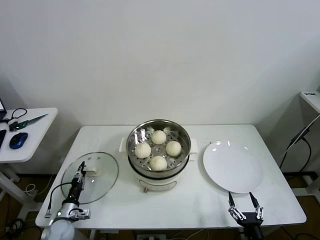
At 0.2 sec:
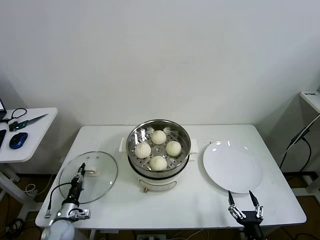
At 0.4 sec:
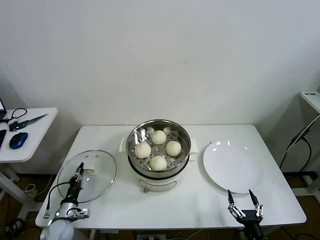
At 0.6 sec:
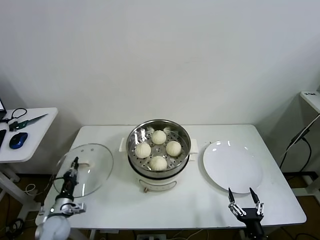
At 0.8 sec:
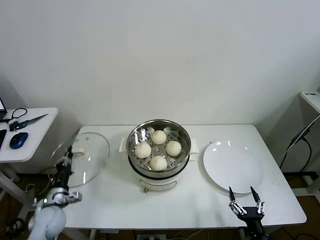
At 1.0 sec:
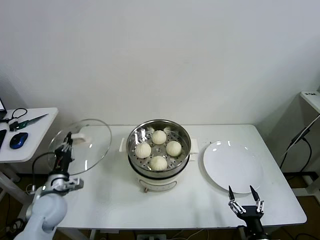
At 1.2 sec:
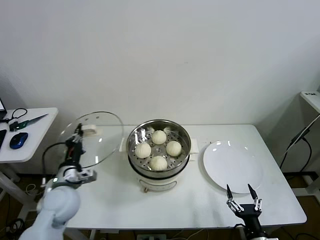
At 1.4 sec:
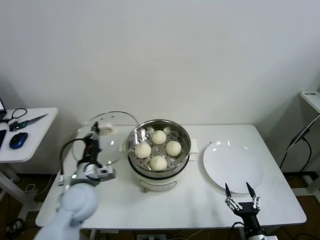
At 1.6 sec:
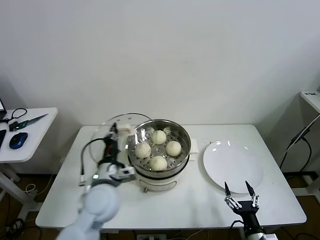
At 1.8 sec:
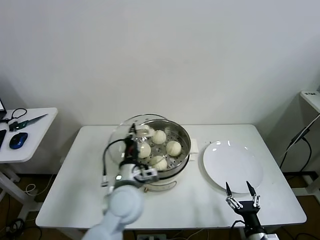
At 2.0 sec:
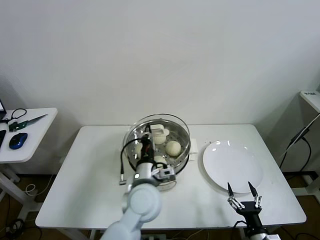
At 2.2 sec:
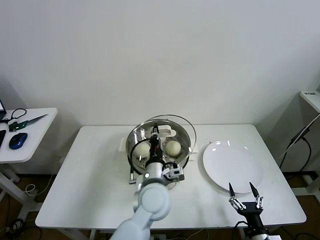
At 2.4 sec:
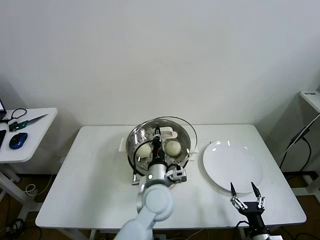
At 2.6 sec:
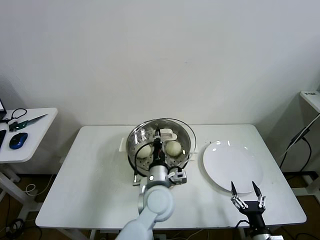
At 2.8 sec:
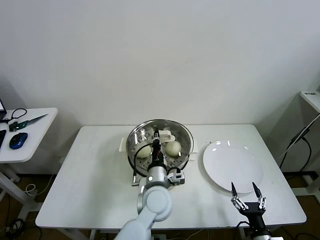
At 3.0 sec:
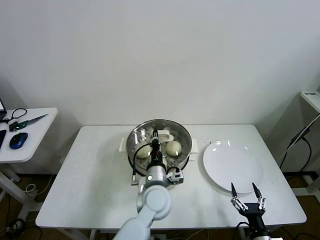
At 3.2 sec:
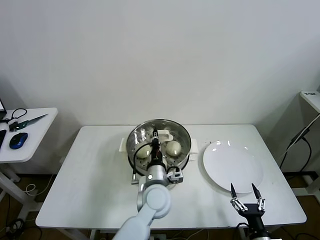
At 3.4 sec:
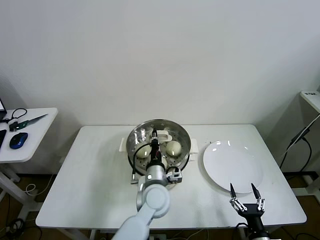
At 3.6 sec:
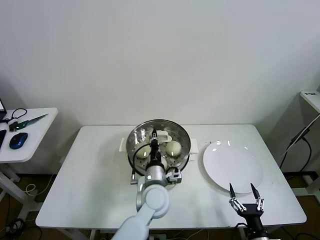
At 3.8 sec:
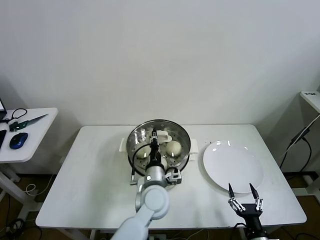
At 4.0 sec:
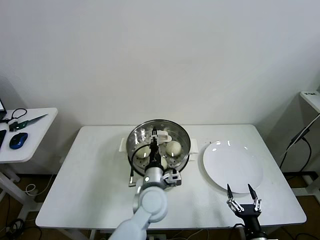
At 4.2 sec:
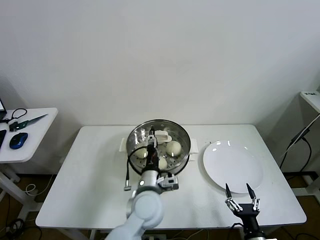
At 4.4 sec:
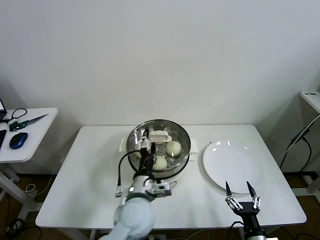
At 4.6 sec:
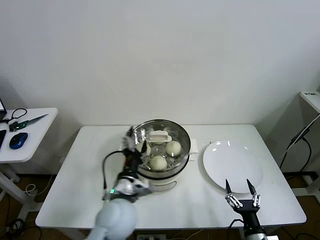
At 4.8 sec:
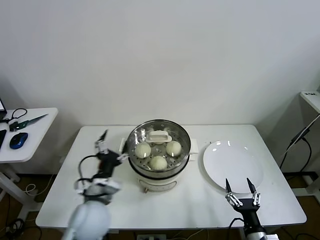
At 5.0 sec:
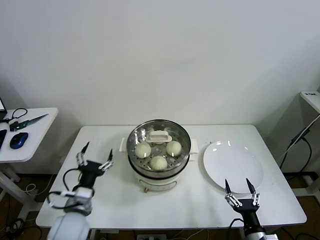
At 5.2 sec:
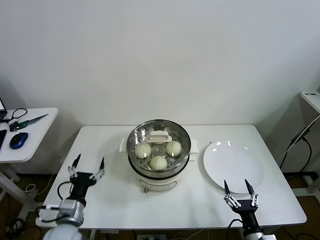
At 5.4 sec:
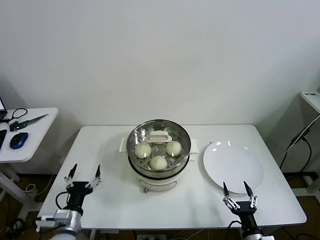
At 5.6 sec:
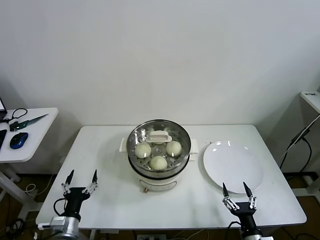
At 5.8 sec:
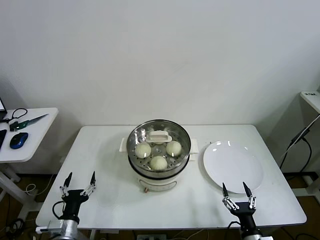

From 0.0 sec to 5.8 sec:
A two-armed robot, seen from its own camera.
Task of the whole recording: take steamed baozi put them in steamer then cover it.
Step, from 0.4 sec to 4.2 sec: Place the pot lid on the steamer with left gripper.
From 0.0 sec to 1.4 sec: The left gripper moves upward and to the right, approximately 30 cm, and closes its fingers.
From 1.4 sec to 2.8 sec: The left gripper shifts about 25 cm to the right.
From 2.8 sec to 4.4 sec: The left gripper shifts by about 5 cm, and opens.
From 4.4 sec to 5.8 sec: The left gripper moves to the left and downward, some 25 cm.
